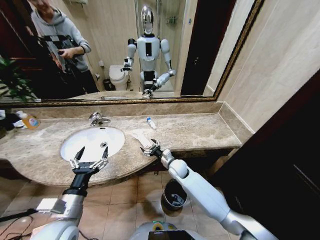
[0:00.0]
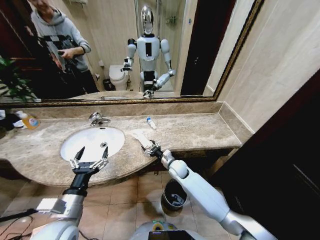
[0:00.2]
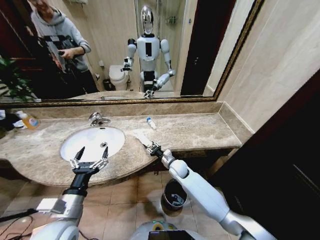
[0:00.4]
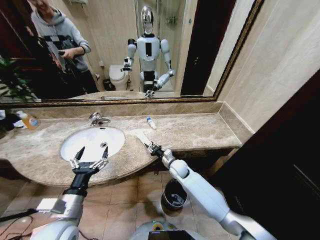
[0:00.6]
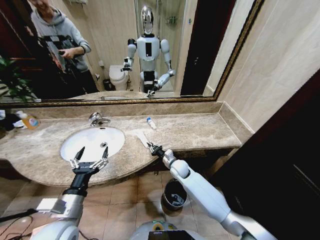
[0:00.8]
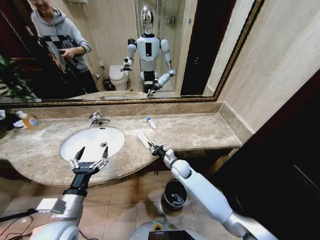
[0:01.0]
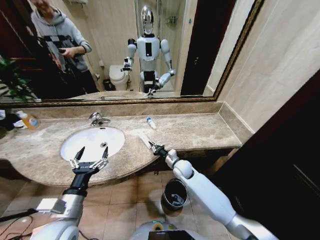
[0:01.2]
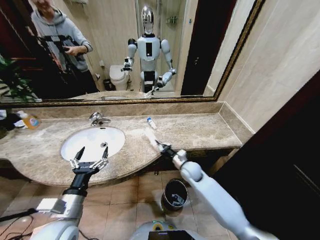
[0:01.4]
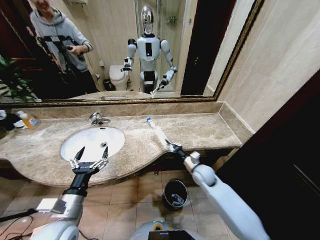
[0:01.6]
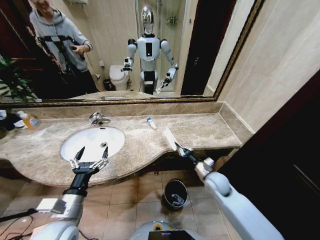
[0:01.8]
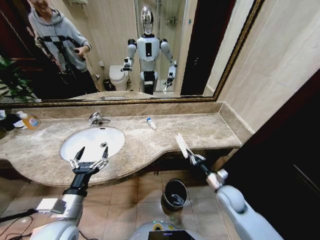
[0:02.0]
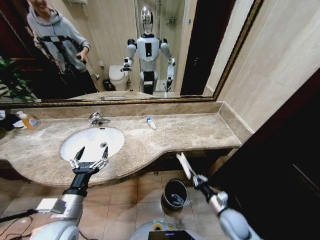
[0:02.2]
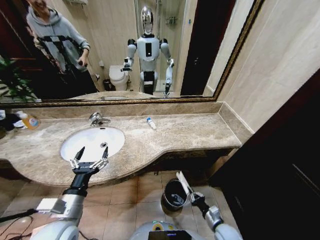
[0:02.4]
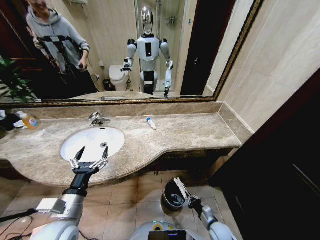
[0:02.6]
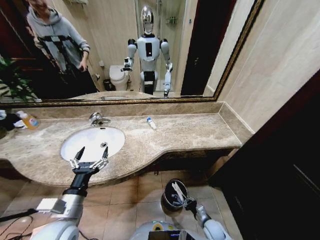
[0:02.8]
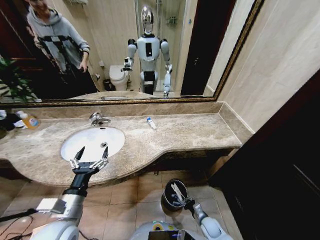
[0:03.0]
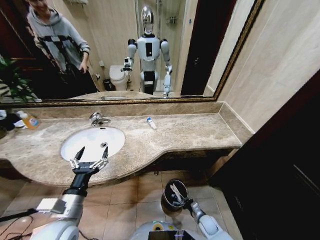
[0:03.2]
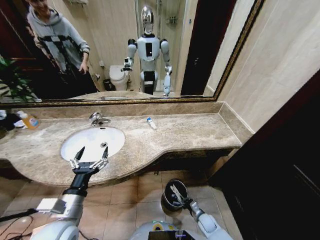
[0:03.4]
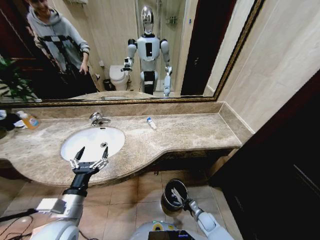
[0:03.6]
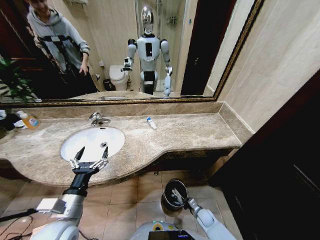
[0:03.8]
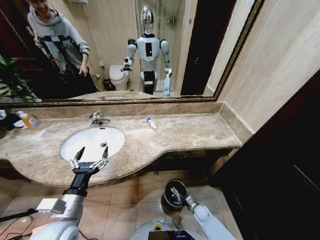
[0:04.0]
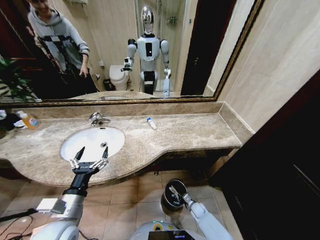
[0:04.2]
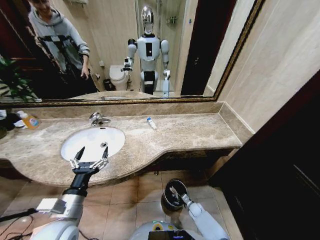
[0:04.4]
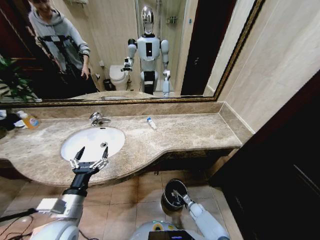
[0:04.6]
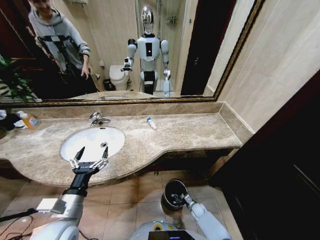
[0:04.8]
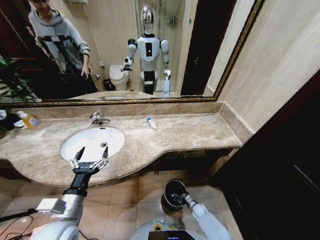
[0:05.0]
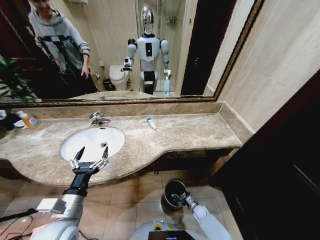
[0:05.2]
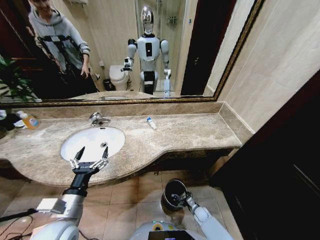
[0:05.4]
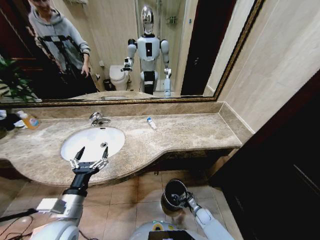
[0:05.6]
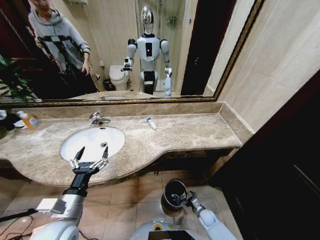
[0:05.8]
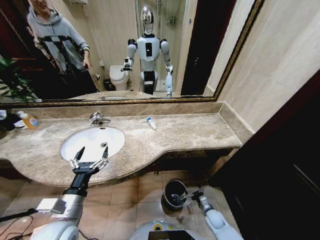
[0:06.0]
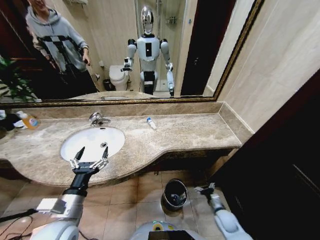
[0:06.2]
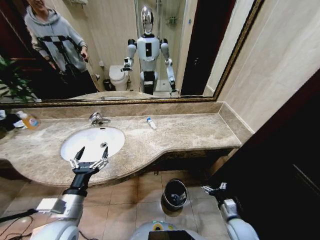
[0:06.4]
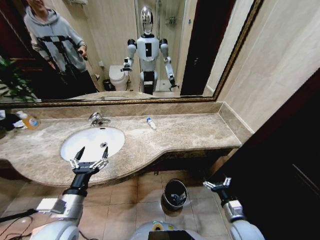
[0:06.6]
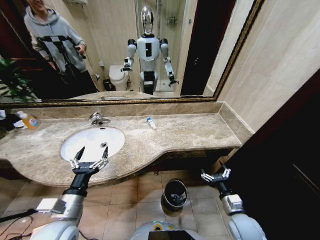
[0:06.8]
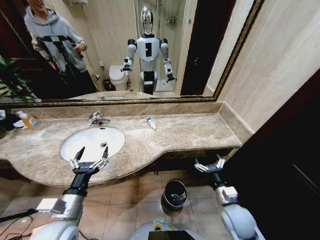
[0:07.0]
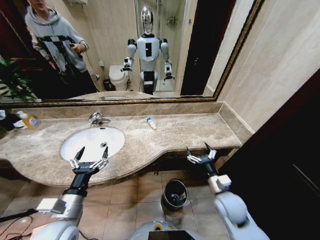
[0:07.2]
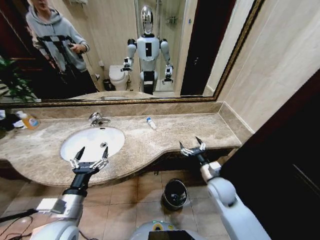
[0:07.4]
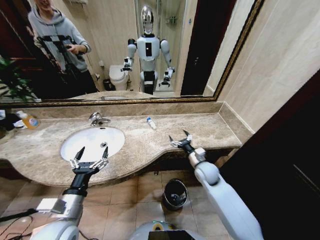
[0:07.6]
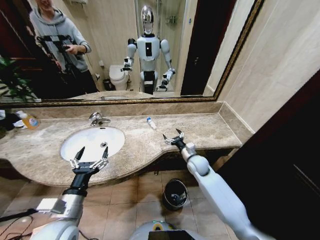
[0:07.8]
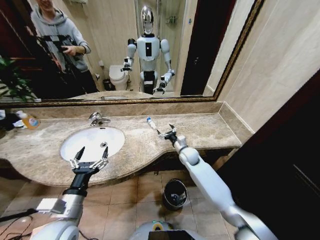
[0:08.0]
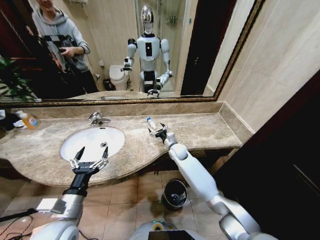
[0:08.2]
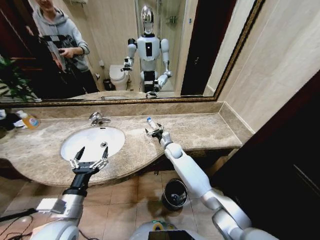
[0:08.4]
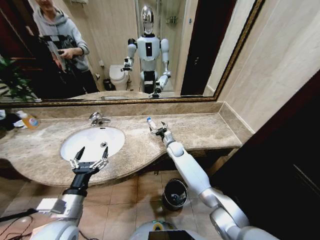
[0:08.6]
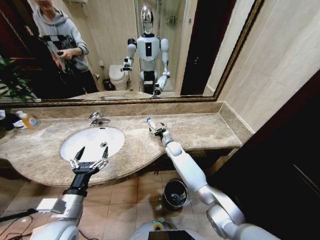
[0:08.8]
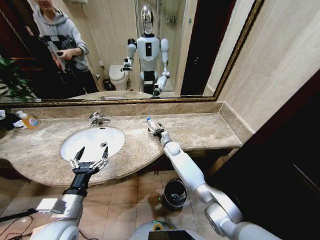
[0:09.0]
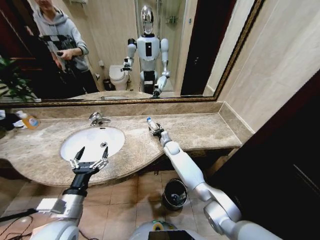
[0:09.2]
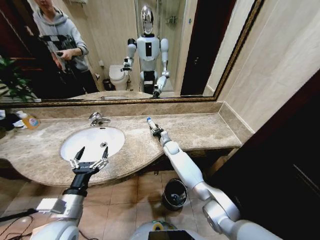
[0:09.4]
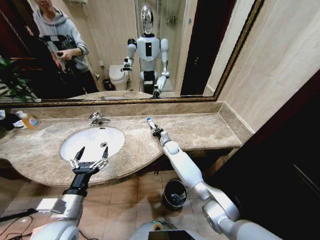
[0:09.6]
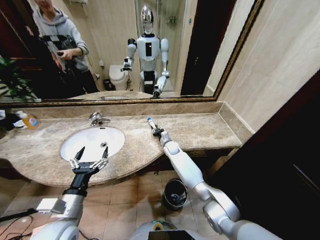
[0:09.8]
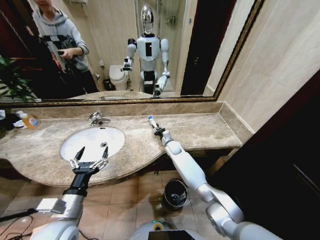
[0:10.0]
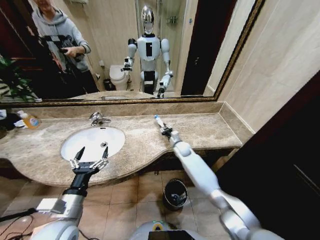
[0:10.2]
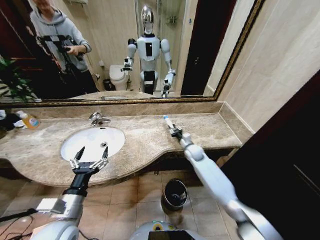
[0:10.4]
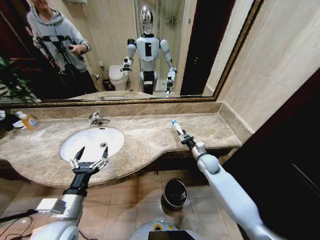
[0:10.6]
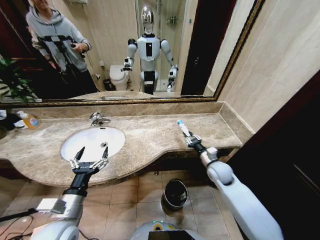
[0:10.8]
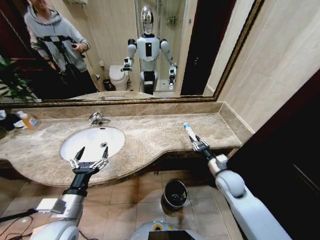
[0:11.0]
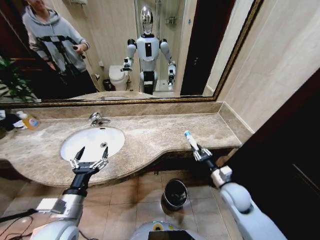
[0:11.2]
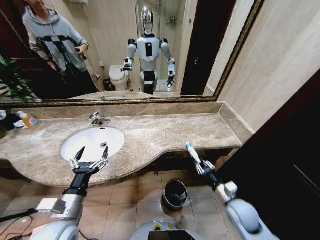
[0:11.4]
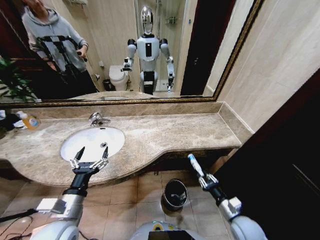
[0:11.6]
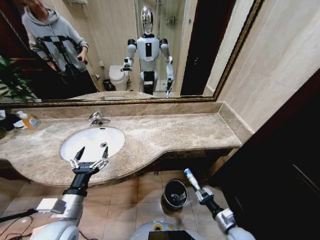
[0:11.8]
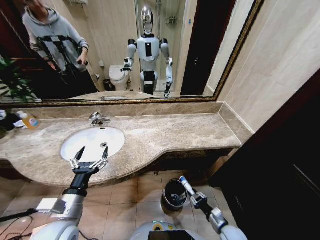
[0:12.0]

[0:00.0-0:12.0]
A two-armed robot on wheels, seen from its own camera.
Task of the whole recording: Pick up the trash from the sink and place it in the trash bin.
0:00.0 to 0:01.6: The right gripper is displaced to the right by roughly 10 cm, and closes.
0:01.6 to 0:03.0: The right gripper is displaced downward and backward by some 30 cm.
0:03.0 to 0:04.4: The right gripper shifts about 10 cm forward and downward.
0:04.4 to 0:06.0: The right gripper travels upward, to the right and backward by approximately 10 cm, and opens its fingers.
0:06.0 to 0:07.6: The right gripper is displaced upward and forward by some 30 cm.
0:07.6 to 0:09.0: The right gripper travels forward and to the left by approximately 20 cm.
0:09.0 to 0:10.4: The right gripper shifts approximately 15 cm to the right and backward, and closes up.
0:10.4 to 0:12.0: The right gripper goes roughly 35 cm backward and downward.

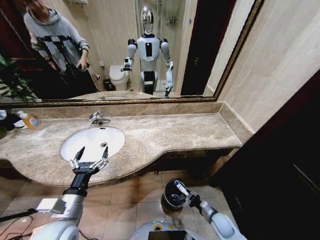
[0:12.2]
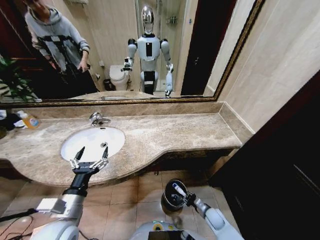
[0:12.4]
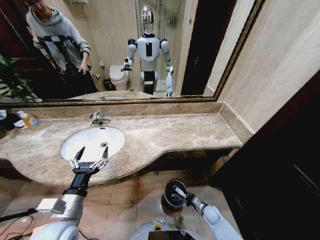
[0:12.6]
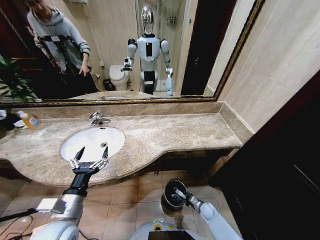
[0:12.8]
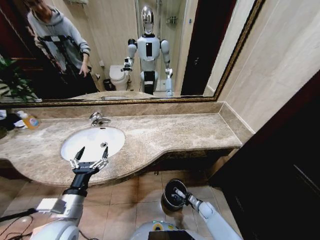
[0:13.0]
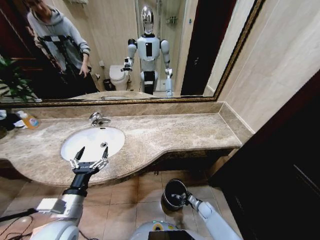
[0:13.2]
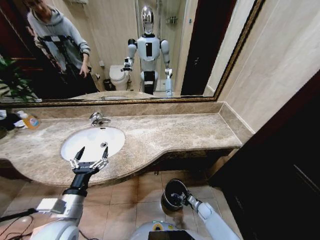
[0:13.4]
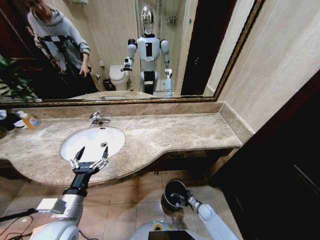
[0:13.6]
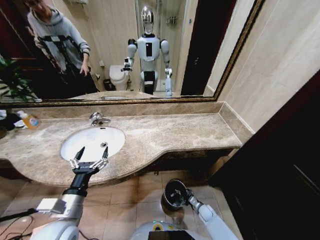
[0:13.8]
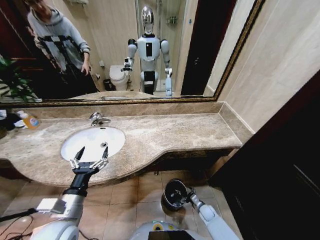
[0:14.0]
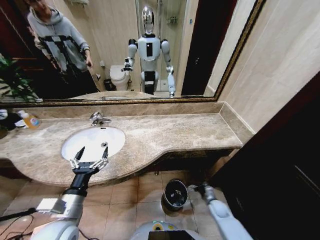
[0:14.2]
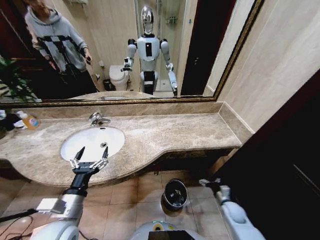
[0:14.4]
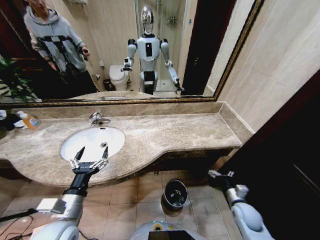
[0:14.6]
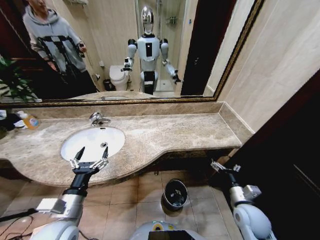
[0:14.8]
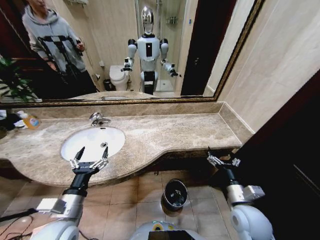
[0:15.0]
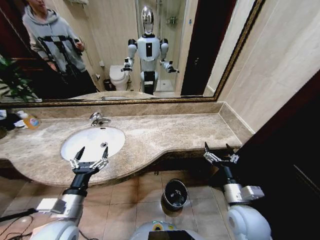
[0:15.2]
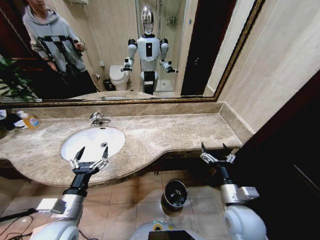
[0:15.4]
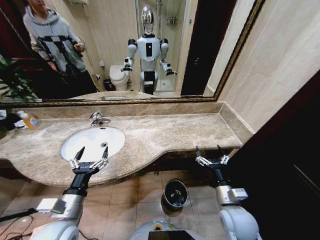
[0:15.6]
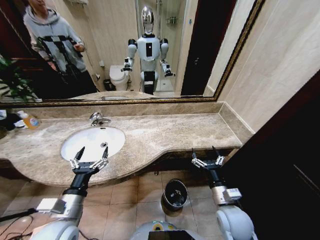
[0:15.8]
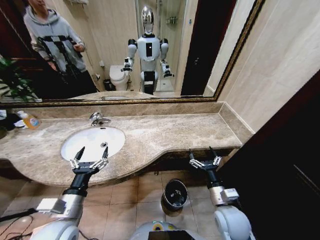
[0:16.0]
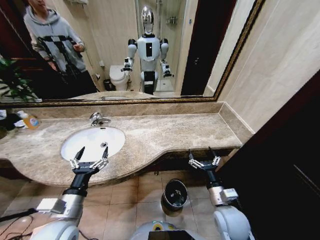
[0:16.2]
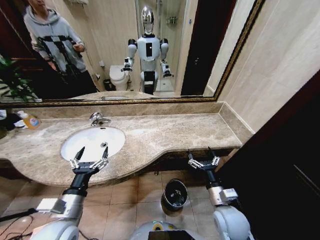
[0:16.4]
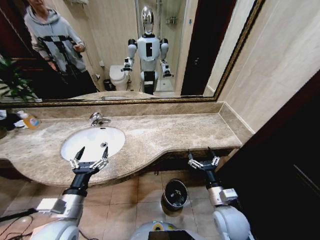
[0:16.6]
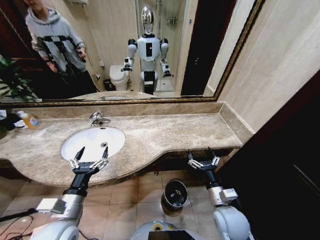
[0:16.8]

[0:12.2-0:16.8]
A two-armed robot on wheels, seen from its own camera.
Task of the whole recording: Pick up the trash from the sink and place it in the trash bin.
0:12.2 to 0:13.8: The right gripper moves downward and forward, some 15 cm, and opens.
0:13.8 to 0:15.2: The right gripper travels upward by roughly 40 cm.
0:15.2 to 0:16.8: The right gripper shifts by some 5 cm.

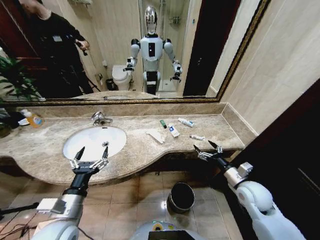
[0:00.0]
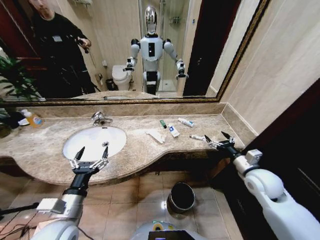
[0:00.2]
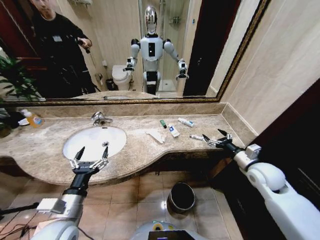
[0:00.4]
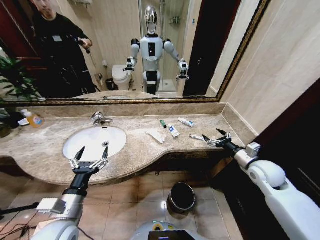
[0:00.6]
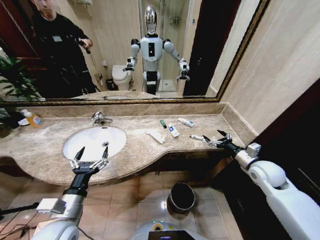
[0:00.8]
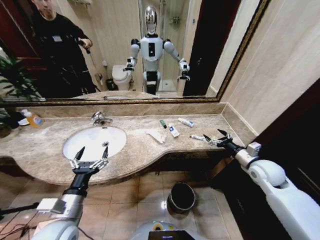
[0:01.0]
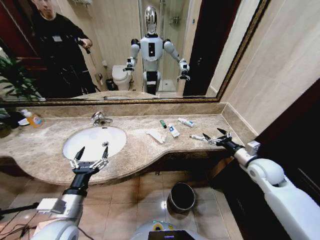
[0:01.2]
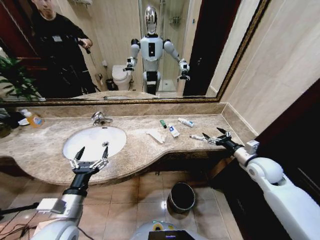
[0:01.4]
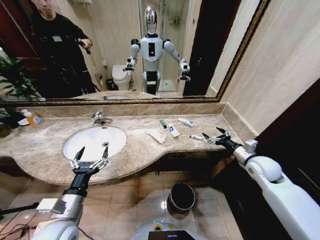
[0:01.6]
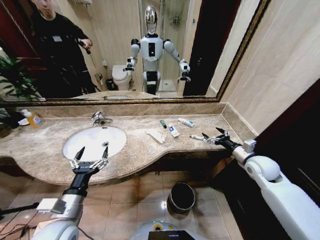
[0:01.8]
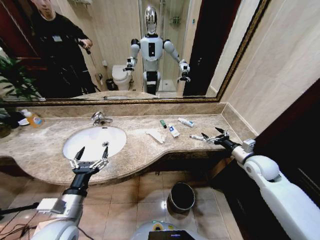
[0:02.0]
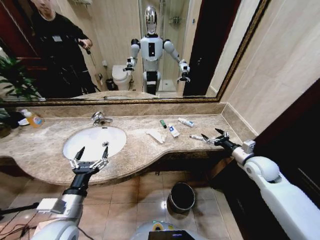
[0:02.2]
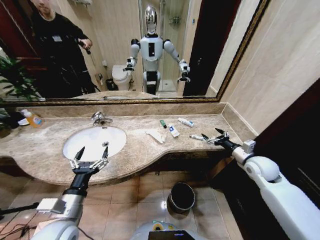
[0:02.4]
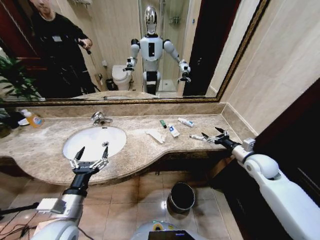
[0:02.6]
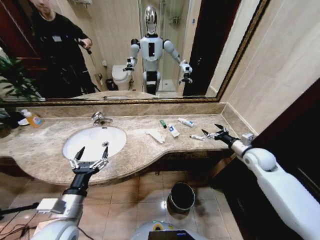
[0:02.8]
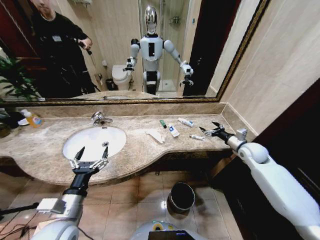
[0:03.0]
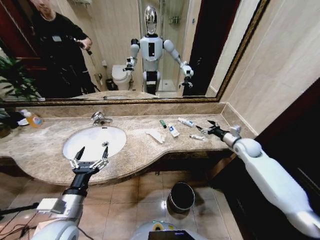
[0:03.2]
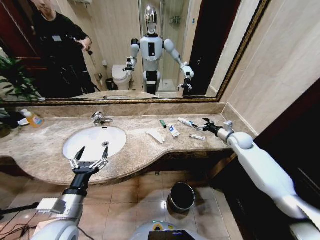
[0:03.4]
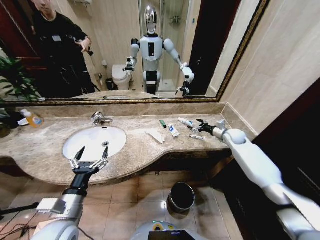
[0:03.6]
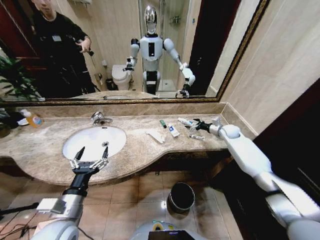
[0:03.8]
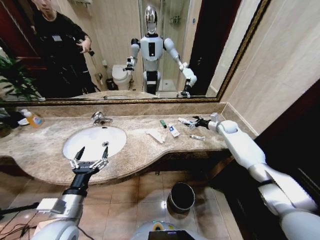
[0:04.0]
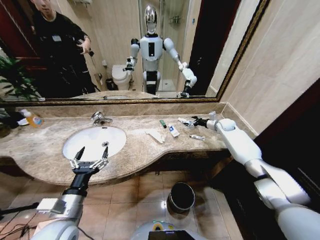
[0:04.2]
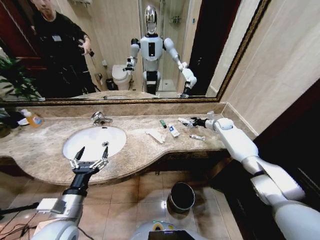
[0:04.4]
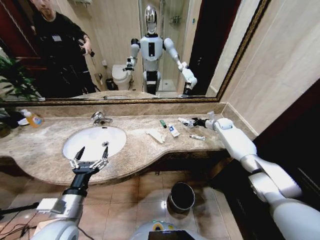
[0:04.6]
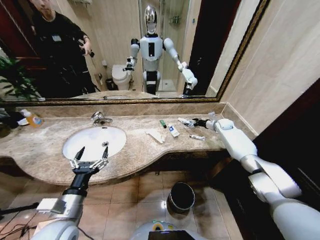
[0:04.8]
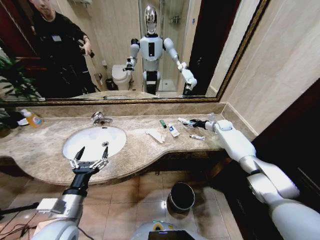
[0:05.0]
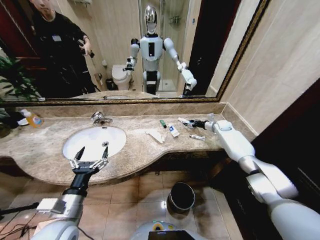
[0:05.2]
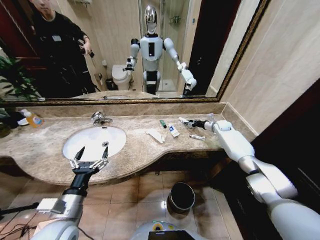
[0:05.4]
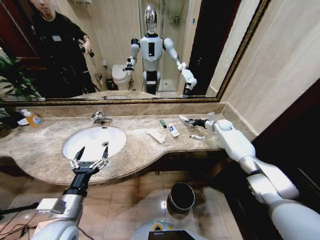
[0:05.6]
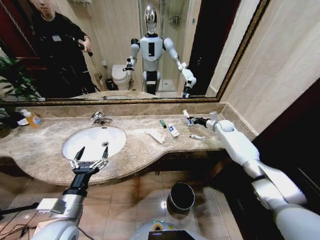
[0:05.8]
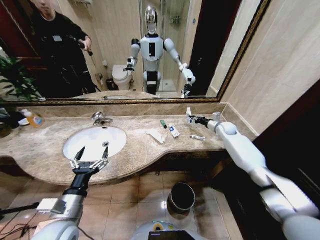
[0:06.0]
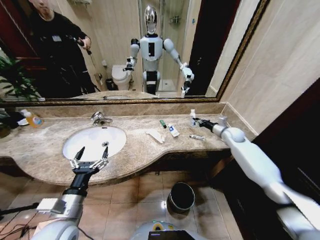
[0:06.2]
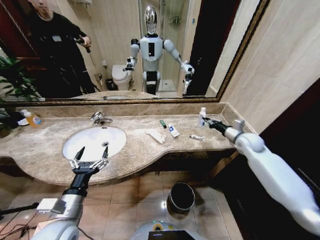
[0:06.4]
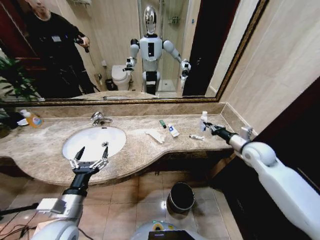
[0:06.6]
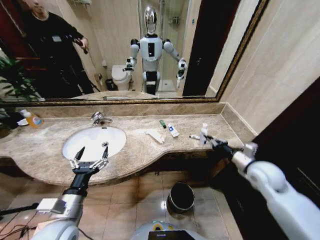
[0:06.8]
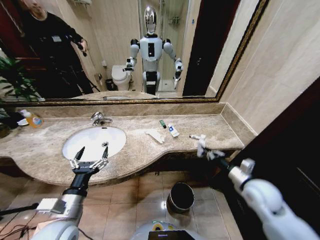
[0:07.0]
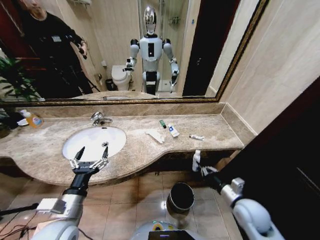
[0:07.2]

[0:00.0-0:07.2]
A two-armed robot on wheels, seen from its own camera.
Task of the whole recording: Pick up the trash from the sink and place it in the trash bin.
0:01.4 to 0:02.8: The right gripper is displaced forward by approximately 5 cm.
0:02.8 to 0:04.4: The right gripper shifts roughly 25 cm forward.
0:04.4 to 0:05.8: The right gripper closes.
0:05.8 to 0:07.2: The right gripper shifts roughly 40 cm backward.
